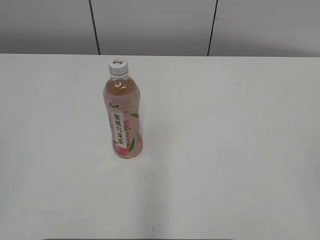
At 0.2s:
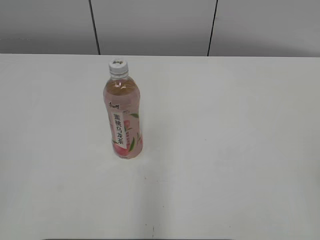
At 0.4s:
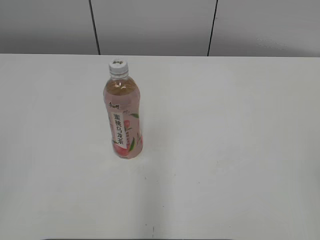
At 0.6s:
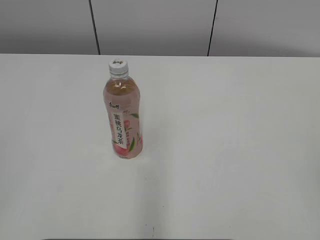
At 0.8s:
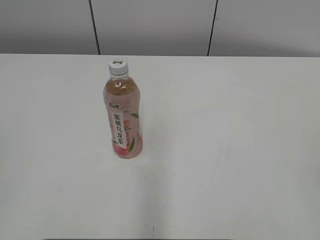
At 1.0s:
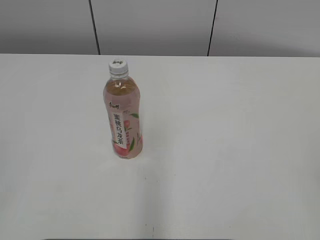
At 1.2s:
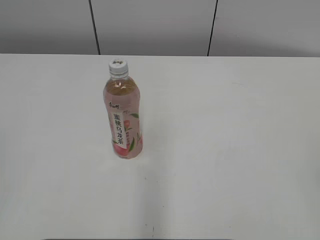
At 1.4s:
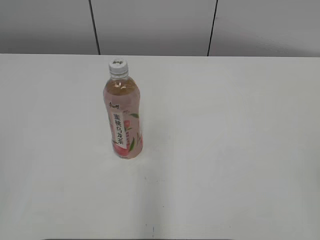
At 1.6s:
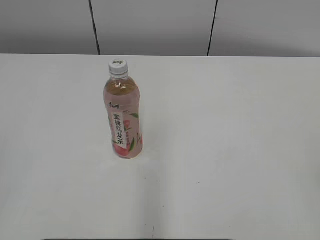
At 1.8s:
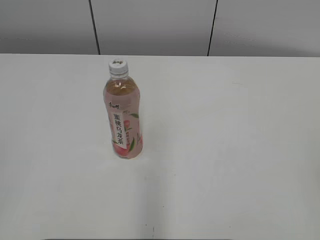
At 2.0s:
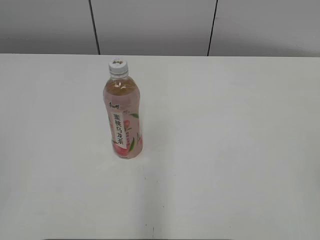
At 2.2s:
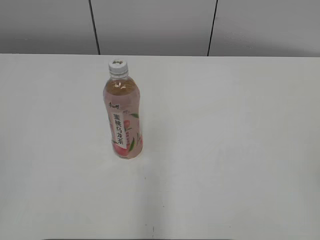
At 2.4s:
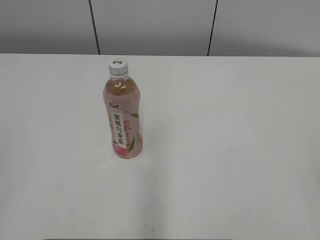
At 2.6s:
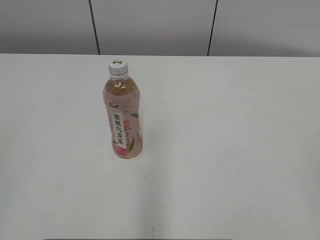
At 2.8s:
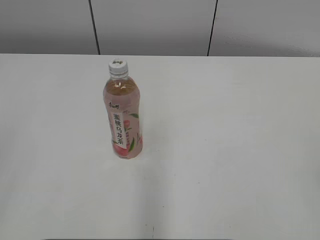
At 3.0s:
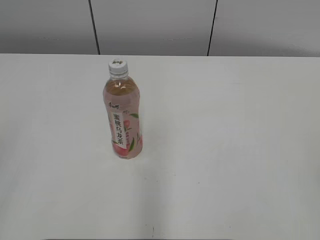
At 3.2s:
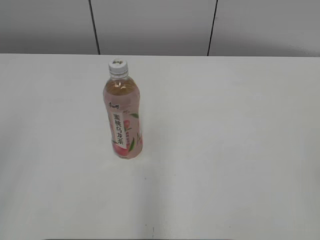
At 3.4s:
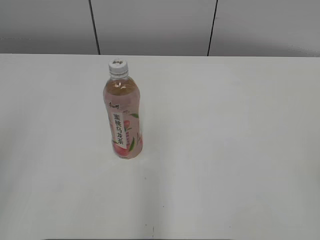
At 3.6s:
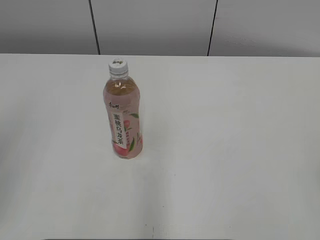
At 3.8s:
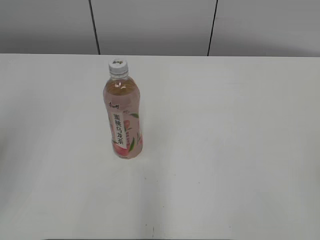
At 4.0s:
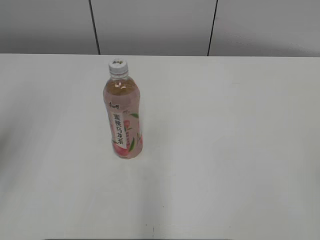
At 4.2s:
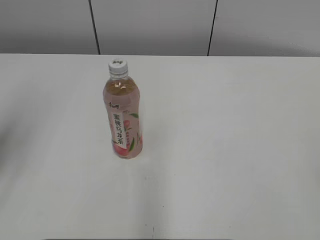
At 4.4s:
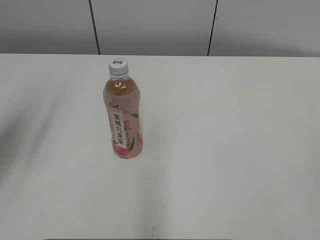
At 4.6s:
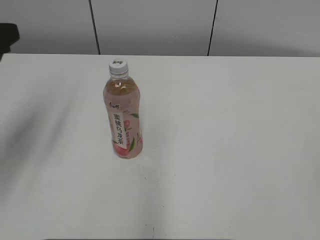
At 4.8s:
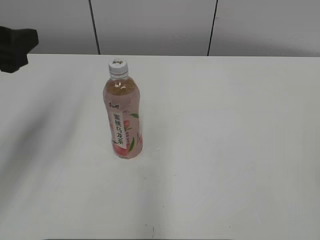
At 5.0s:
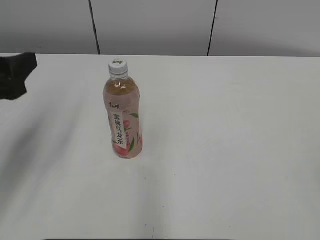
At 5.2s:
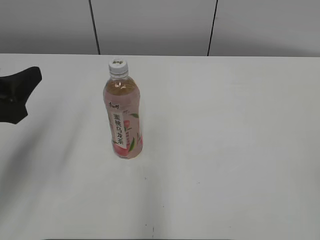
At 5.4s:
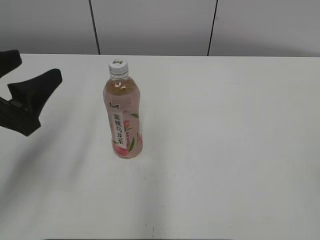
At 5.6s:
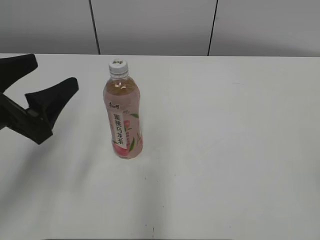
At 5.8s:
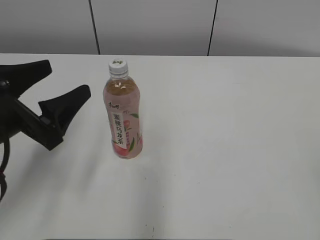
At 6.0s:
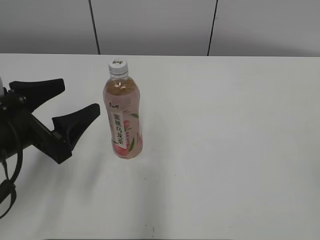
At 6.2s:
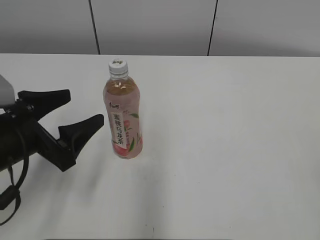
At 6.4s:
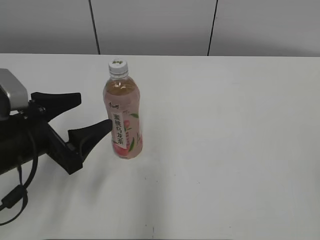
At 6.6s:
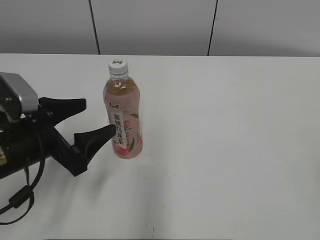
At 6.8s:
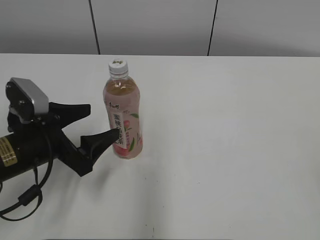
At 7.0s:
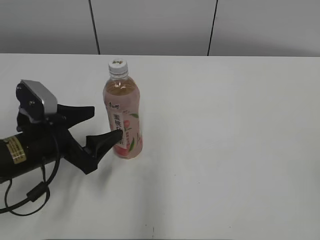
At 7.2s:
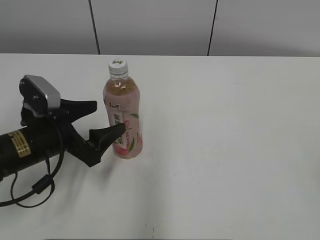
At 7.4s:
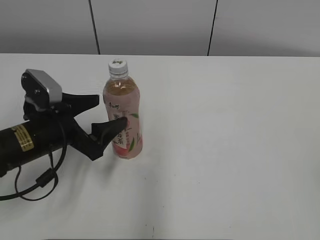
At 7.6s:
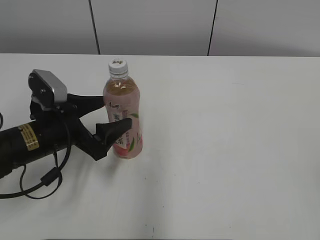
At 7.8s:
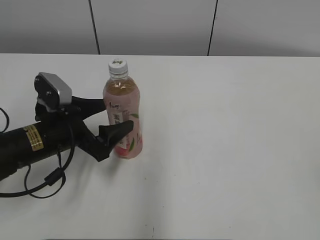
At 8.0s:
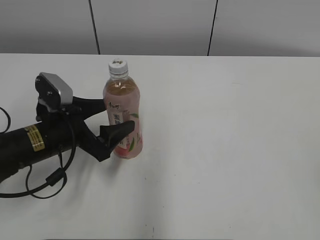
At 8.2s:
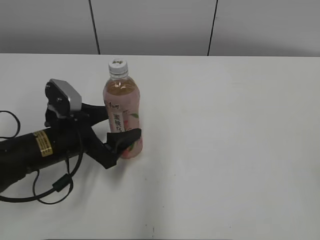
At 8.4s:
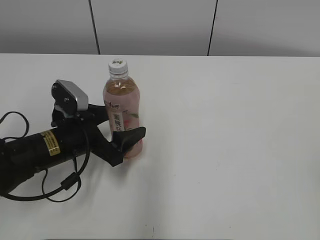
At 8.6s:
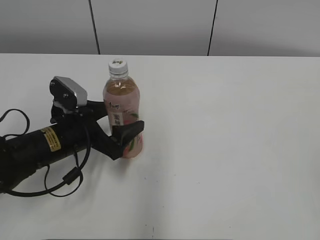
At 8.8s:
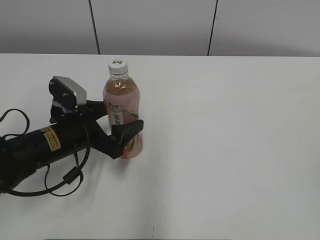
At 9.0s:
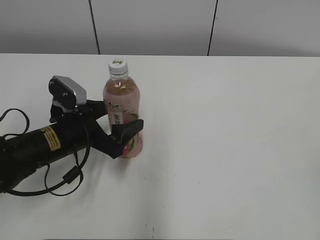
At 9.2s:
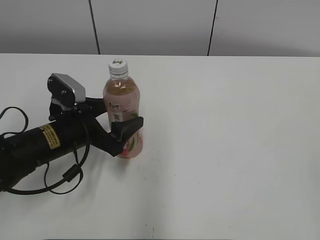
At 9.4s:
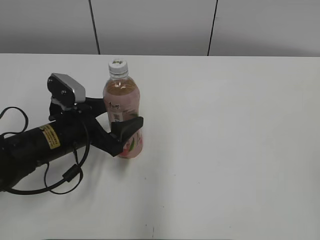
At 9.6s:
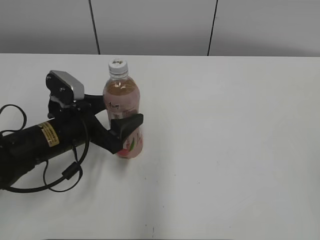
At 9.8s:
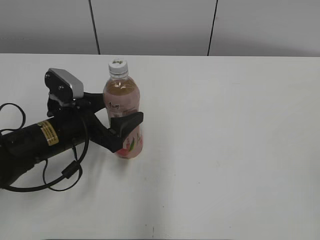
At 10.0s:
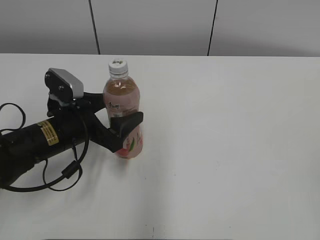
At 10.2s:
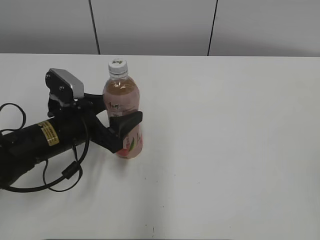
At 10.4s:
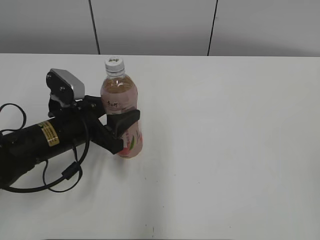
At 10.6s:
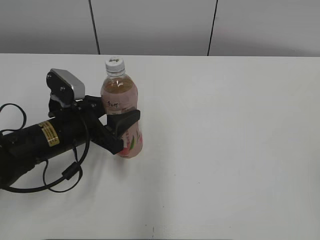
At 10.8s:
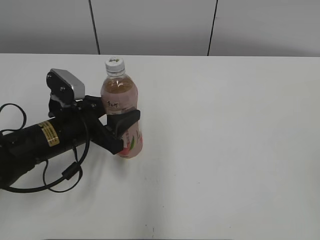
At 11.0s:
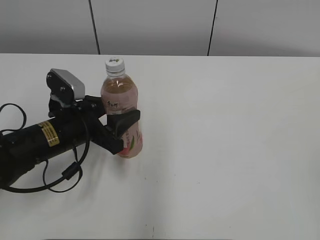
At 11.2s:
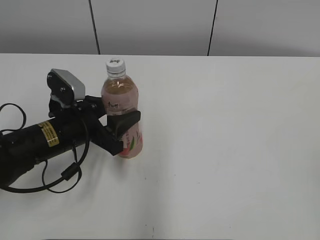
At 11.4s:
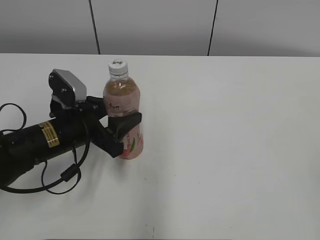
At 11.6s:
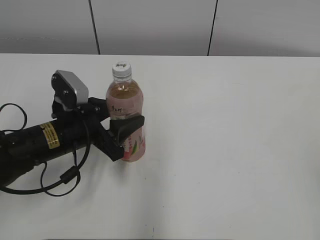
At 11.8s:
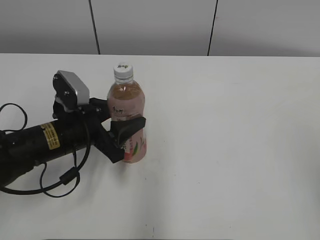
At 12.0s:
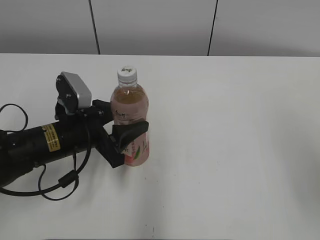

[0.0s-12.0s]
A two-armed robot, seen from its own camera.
Step, 0.0s to 10.4s: Grab the Peach Oolong Tea with the left hand.
3.0s to 4.4s: The left gripper goes roughly 15 cm forward, and opens.
4.4s to 6.0s: The left gripper moves downward and to the right, some 15 cm, and opens.
6.0s to 7.6s: The left gripper is displaced forward and downward by about 10 cm.
7.6s to 9.0s: The grippers stay close to where they were, moving slightly.
9.0s to 10.4s: The left gripper closes its fingers.
10.4s to 12.0s: The right gripper is displaced forward by roughly 10 cm.

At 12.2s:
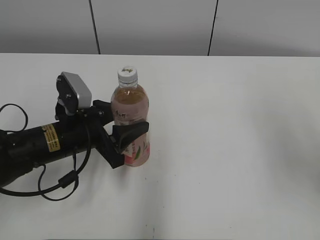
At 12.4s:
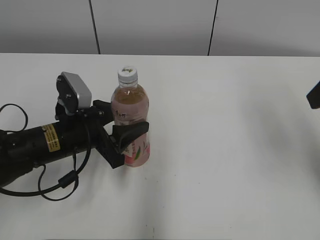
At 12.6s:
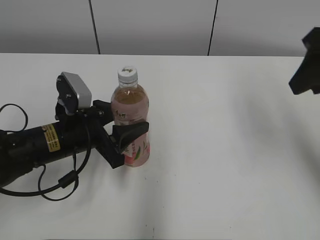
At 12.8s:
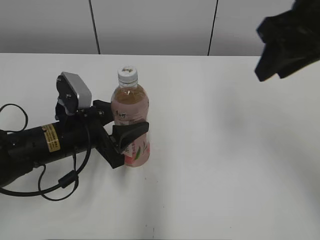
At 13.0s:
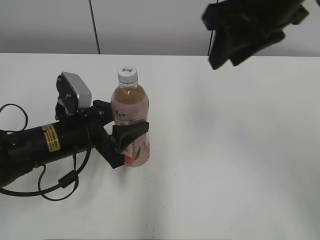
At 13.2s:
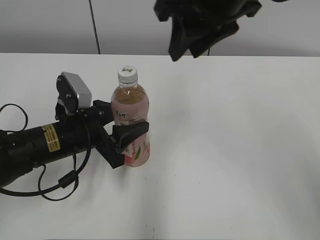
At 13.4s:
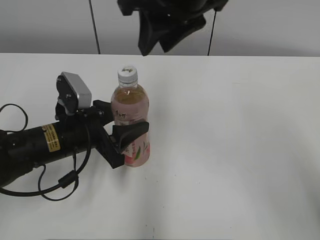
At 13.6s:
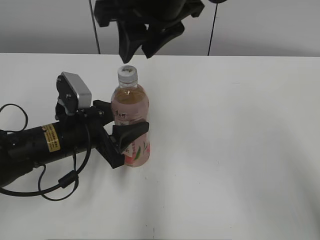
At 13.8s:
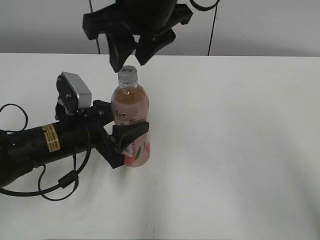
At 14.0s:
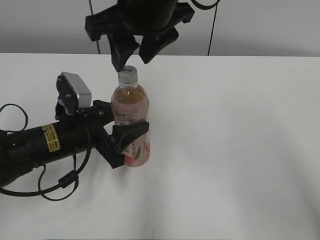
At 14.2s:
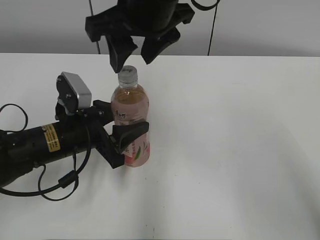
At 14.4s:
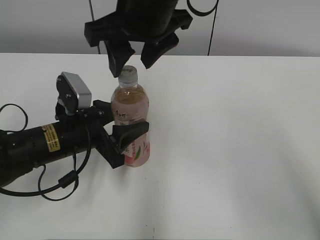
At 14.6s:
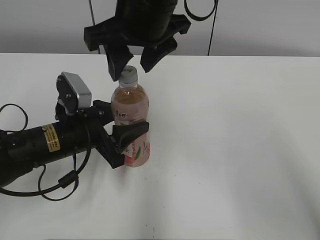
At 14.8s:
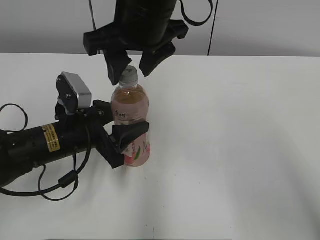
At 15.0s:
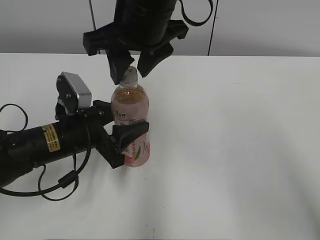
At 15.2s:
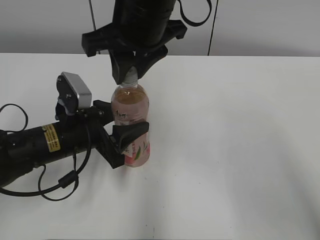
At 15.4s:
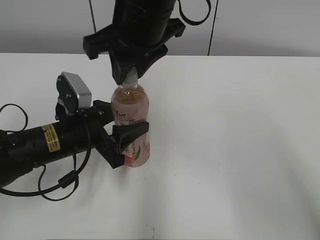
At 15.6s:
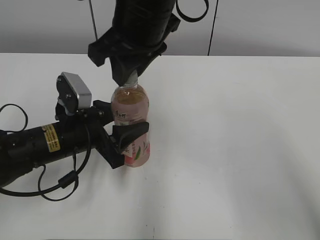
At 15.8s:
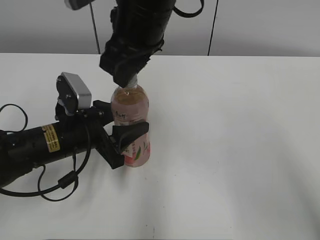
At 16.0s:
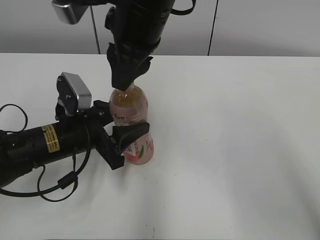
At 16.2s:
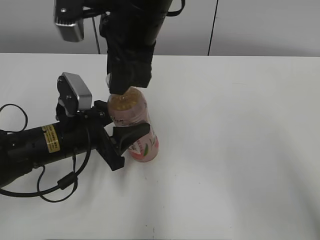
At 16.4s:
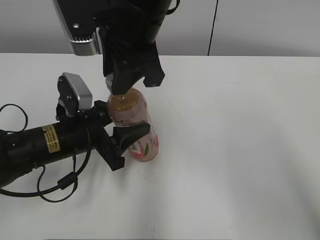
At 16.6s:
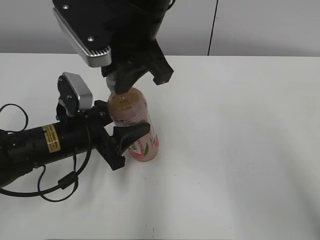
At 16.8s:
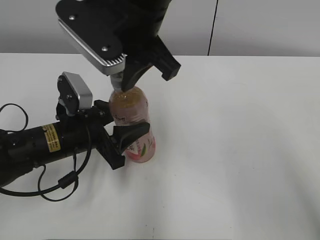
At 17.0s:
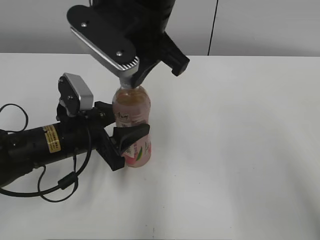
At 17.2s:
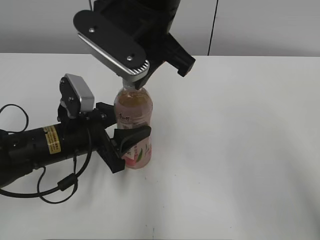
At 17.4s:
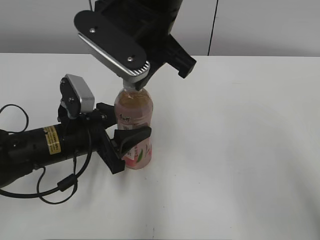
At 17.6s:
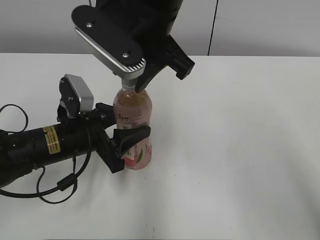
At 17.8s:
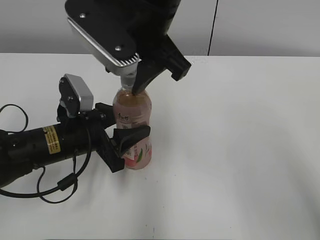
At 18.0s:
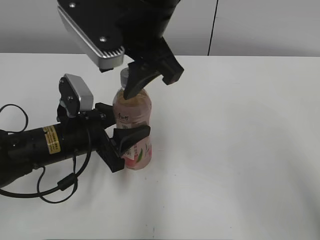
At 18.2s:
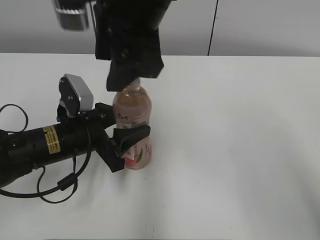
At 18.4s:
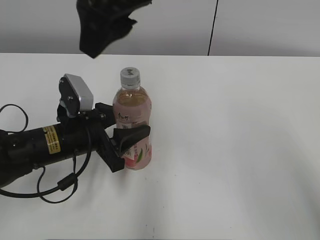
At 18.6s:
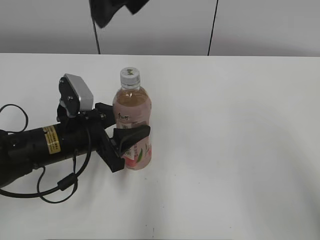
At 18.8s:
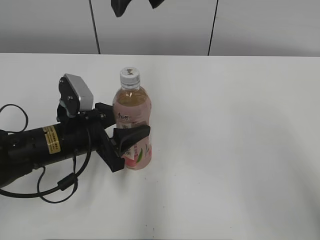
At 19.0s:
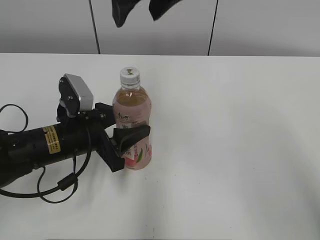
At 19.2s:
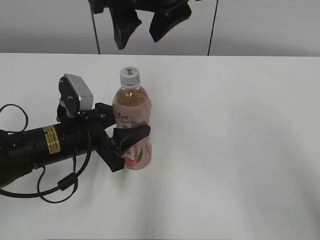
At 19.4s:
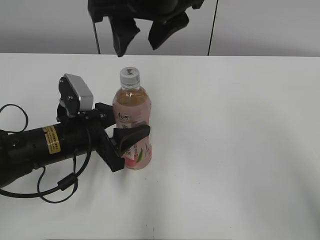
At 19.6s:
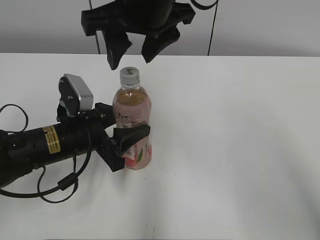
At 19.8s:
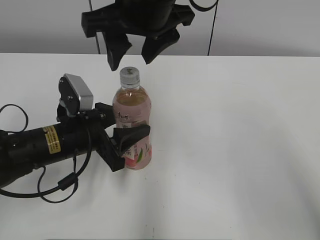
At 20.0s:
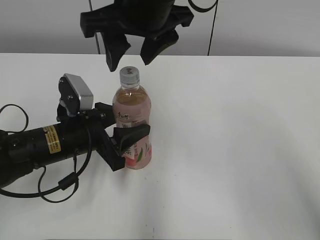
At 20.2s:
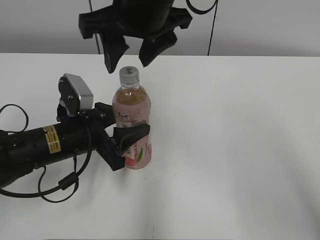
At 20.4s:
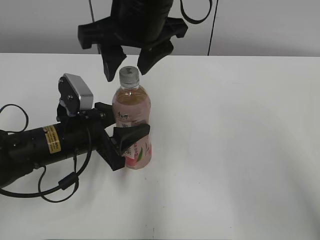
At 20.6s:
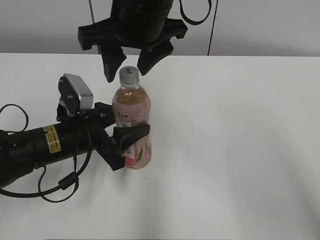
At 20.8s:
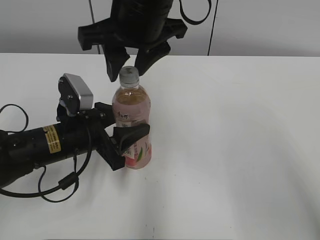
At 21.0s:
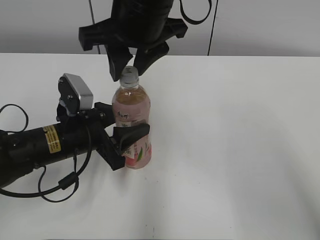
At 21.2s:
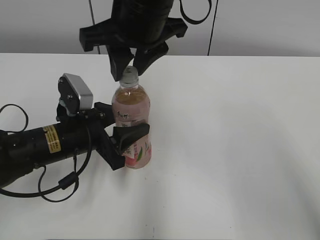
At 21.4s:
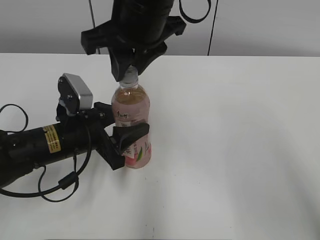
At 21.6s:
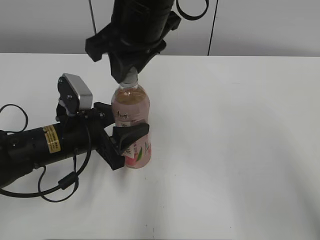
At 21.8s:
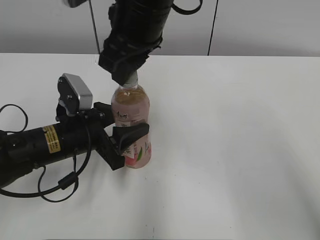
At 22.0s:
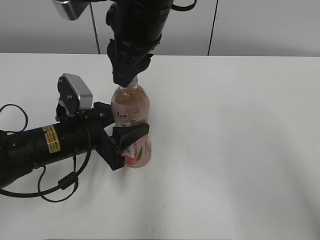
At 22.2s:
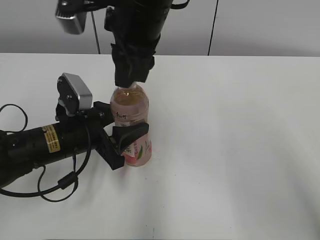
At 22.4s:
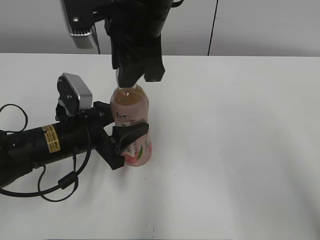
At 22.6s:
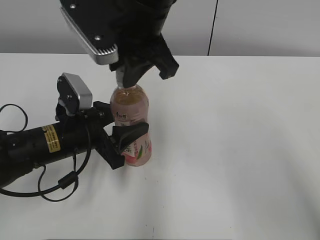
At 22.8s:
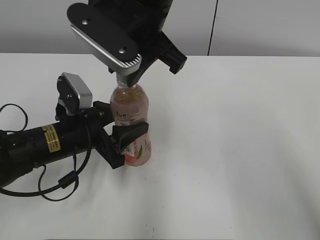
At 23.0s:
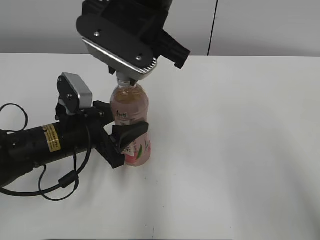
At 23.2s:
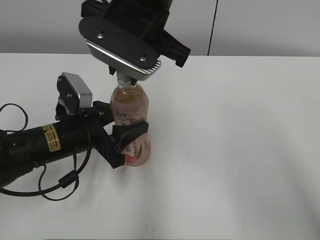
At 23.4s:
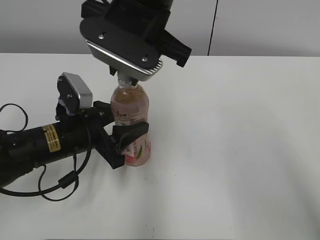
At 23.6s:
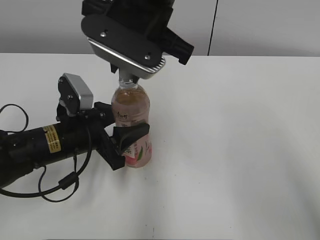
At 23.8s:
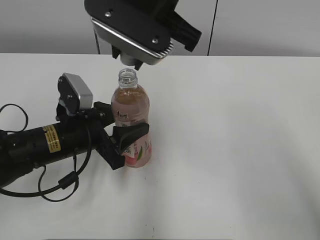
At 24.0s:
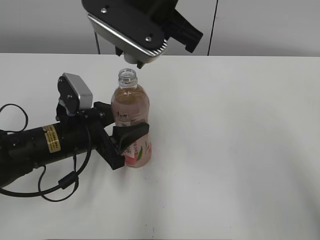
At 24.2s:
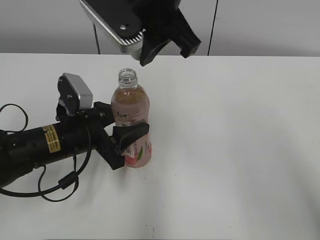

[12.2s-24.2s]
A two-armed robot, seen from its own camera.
12.2s to 13.8s: The right gripper heads to the left and forward, covering approximately 30 cm.
13.8s to 15.2s: The right gripper closes its fingers.
16.6s to 18.2s: The right gripper opens.
19.8s to 21.2s: The right gripper closes.
